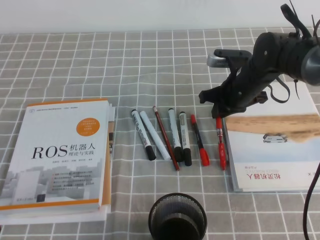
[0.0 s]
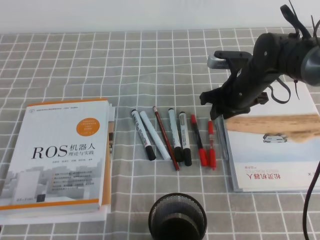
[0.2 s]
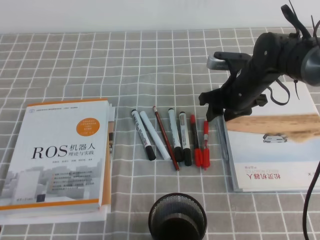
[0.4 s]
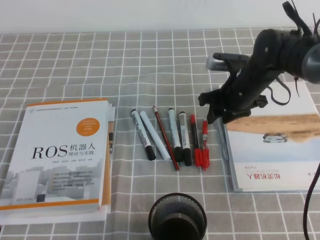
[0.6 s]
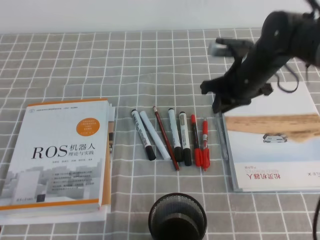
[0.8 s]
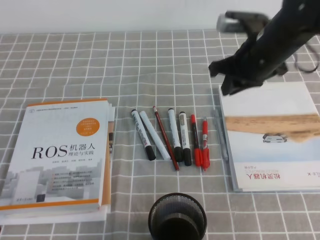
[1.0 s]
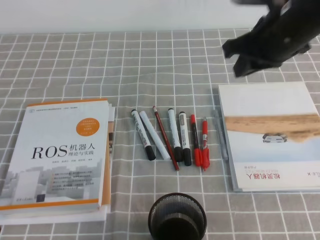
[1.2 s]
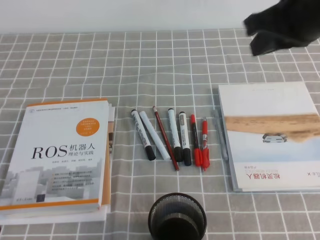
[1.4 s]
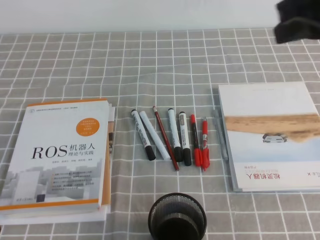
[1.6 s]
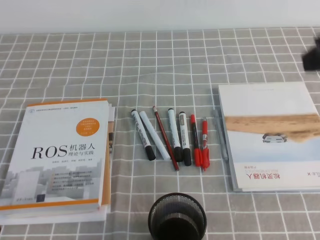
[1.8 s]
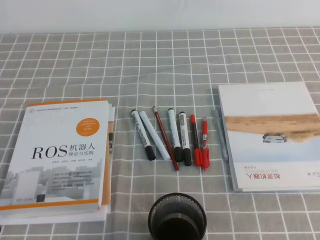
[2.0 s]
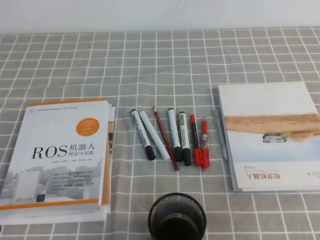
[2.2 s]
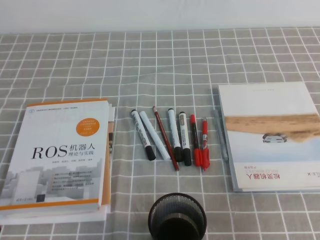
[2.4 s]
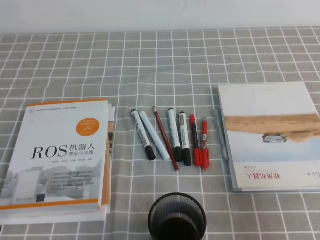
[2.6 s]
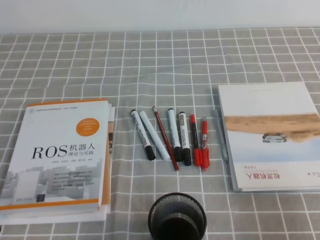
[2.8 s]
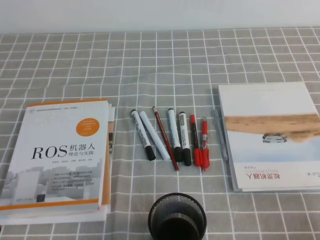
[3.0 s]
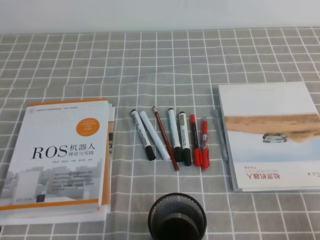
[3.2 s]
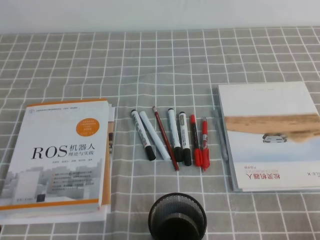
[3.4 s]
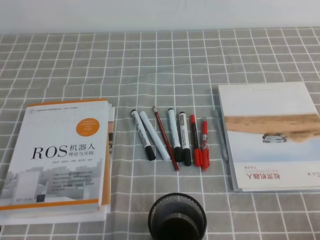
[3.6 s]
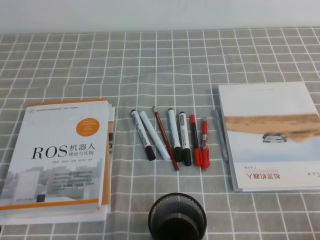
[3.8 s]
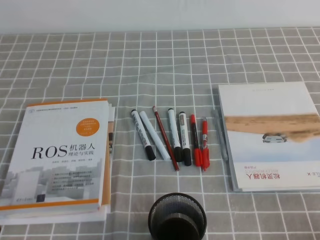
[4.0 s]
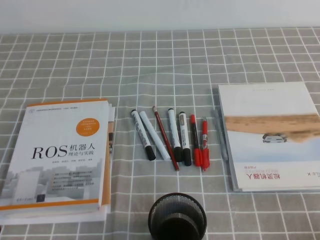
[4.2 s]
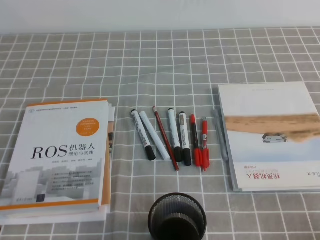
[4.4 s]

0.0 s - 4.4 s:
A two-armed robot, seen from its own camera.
Step, 0.0 s - 4.4 s: Pick up the pen from the pen holder.
0.0 s - 1.4 s: The right gripper heads upward and backward, covering some 25 cm, and opens, then closes once more.
1.4 s - 3.0 s: The right gripper moves backward, downward and to the right, some 35 cm.
